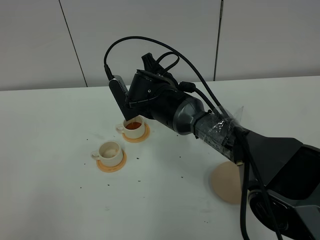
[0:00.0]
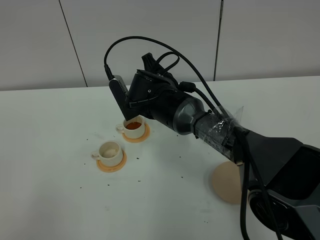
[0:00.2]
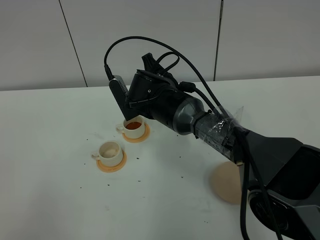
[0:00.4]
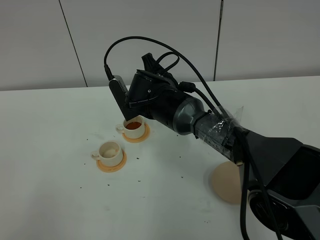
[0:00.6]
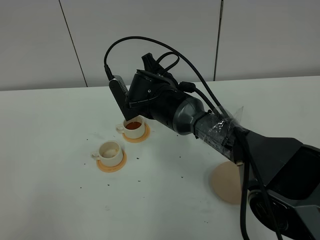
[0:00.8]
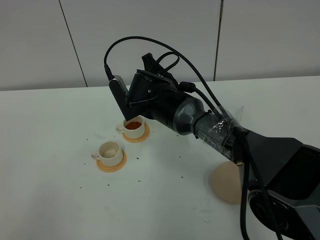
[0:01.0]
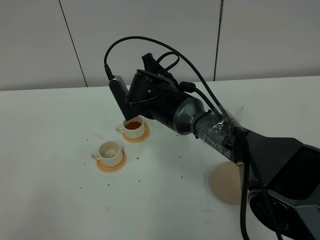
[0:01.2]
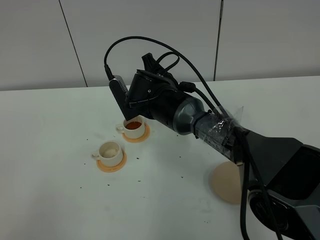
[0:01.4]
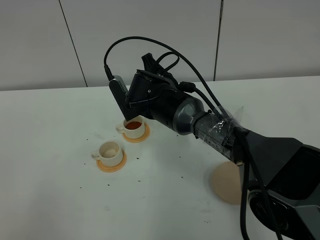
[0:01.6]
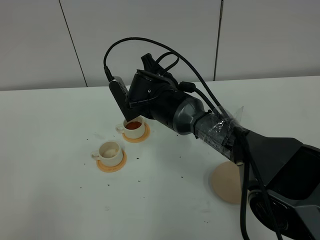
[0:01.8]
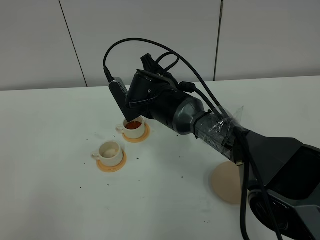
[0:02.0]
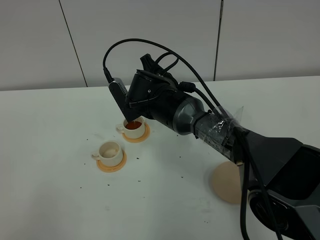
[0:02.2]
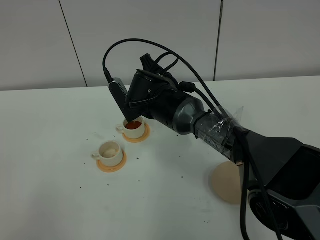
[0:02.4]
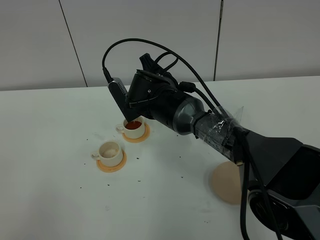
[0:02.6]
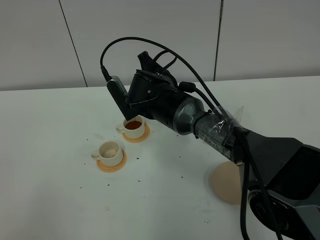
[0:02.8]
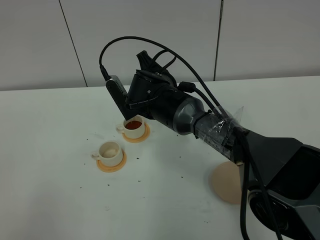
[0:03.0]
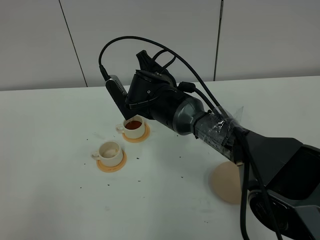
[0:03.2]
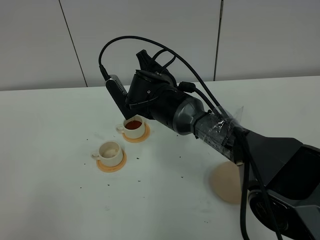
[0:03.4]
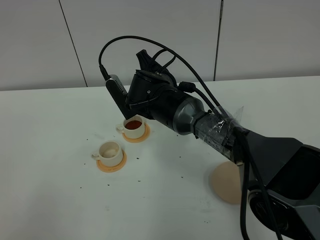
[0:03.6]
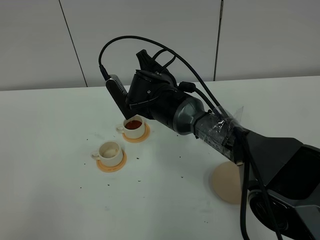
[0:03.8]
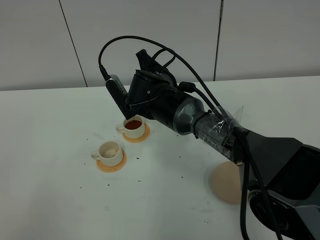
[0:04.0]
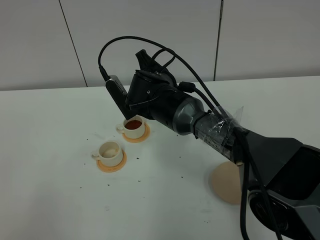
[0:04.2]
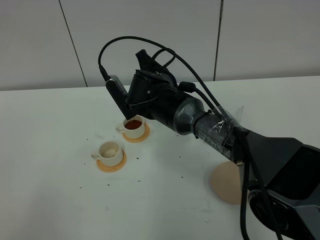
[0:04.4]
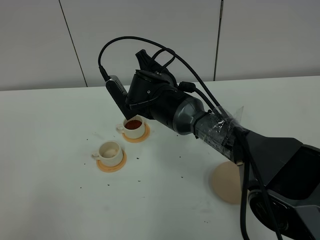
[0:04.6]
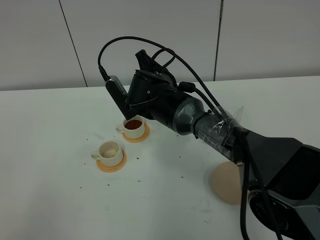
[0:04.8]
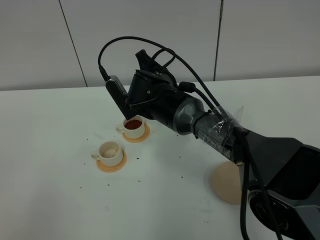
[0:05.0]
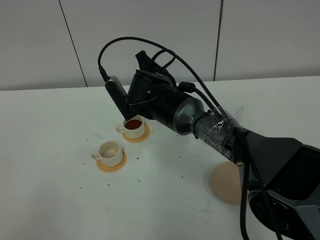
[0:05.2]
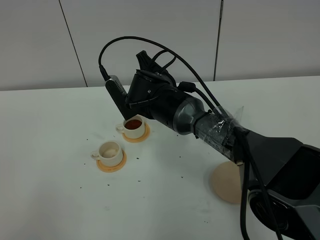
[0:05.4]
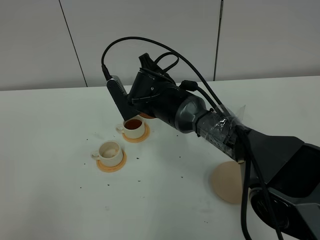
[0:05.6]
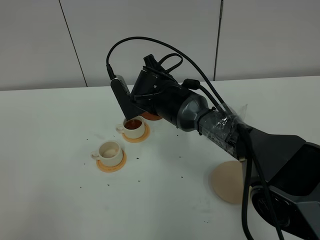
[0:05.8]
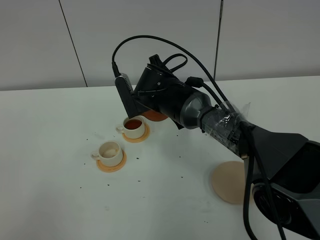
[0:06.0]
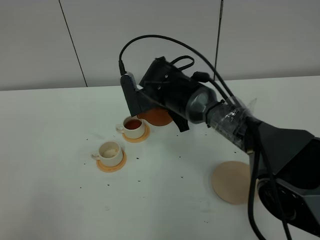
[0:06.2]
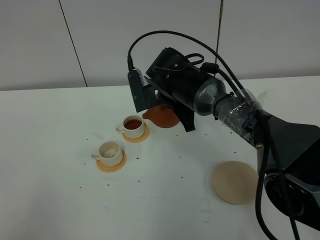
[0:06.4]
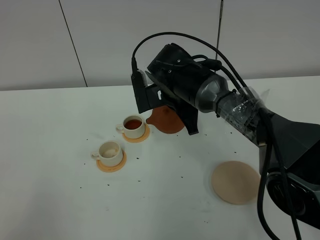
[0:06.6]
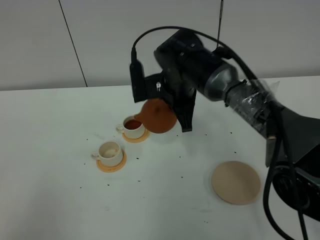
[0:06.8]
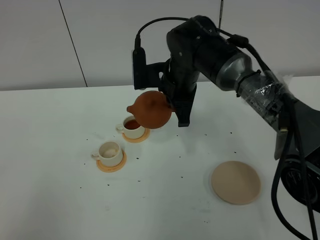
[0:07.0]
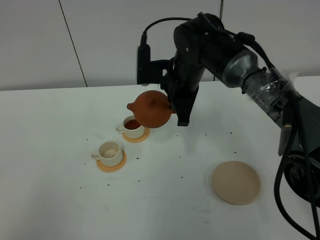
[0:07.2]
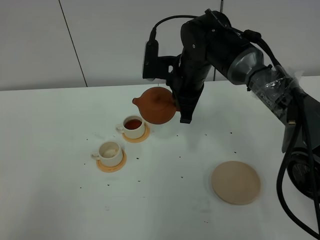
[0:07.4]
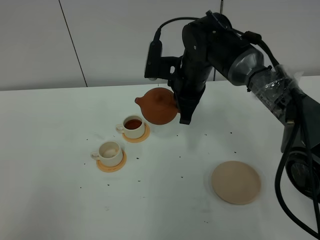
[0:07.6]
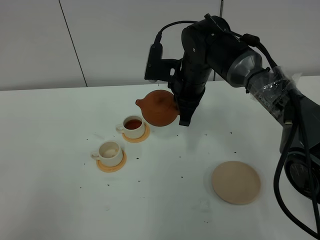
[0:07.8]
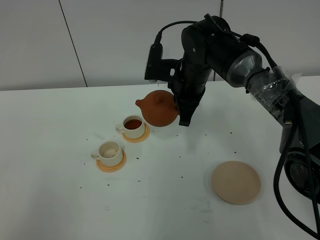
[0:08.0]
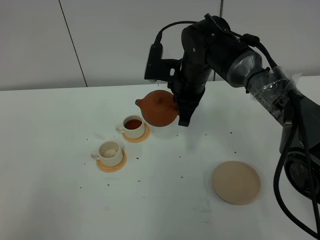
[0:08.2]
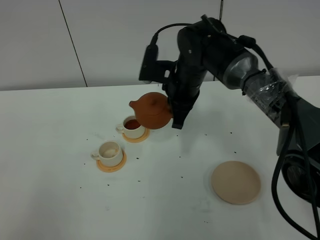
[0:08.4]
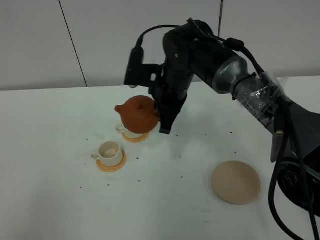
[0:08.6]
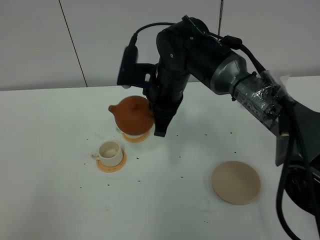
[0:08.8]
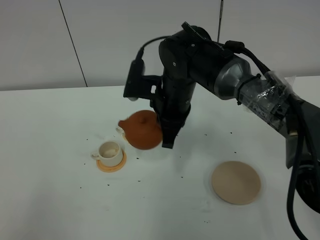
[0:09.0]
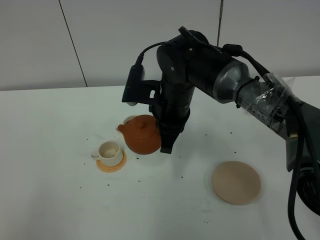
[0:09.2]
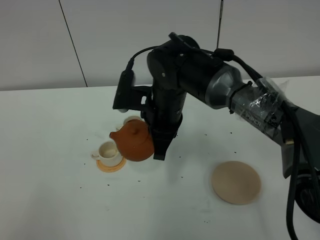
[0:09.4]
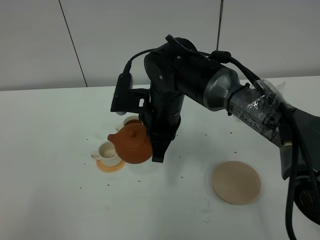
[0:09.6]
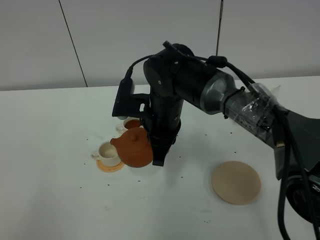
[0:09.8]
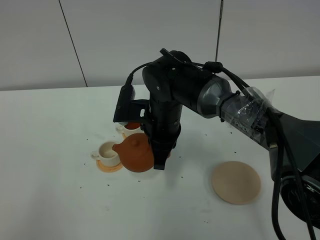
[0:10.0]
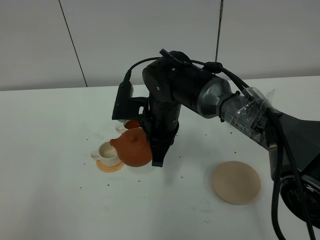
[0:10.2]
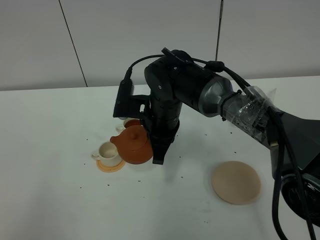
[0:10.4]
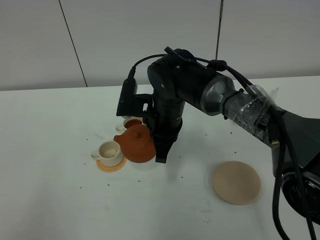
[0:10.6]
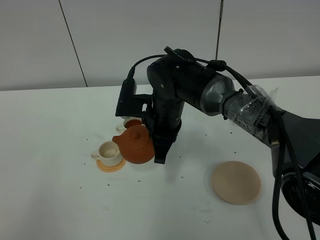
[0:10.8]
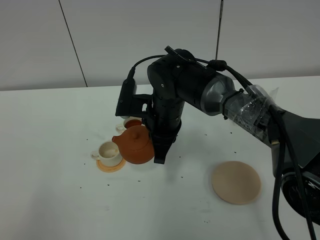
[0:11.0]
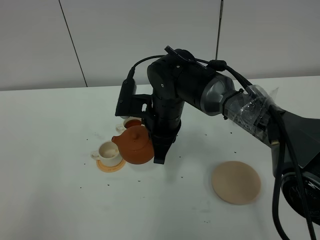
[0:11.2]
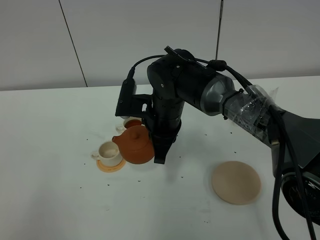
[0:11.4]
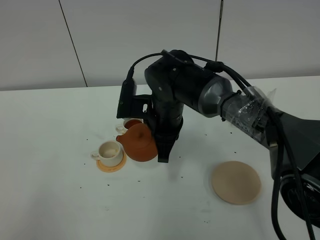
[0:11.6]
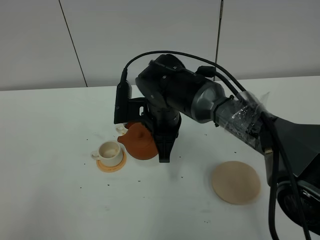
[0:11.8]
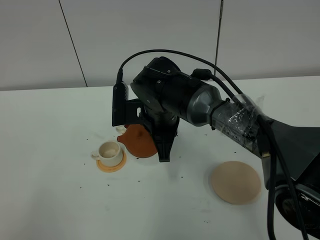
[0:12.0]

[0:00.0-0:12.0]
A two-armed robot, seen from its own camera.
Task of the whole recording: grasp the brown teapot and pour the tea into the two white teacups one by one, put the brown teapot back in its original place.
0:00.0 to 0:03.0: Both grippers stay about where they are.
0:03.0 to 0:04.4: Both grippers stay put.
0:04.4 to 0:06.0: The grippers make only small movements.
0:06.0 to 0:07.6: The right gripper heads to the right, covering some 5 cm.
0:07.6 to 0:09.0: The right gripper travels backward by some 5 cm.
0:09.0 to 0:12.0: The grippers stay close to where they were, moving slightly.

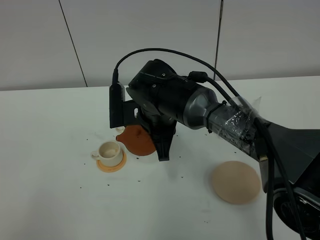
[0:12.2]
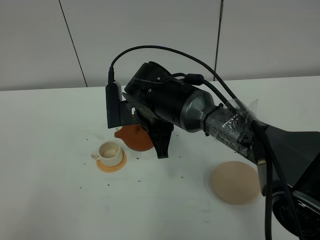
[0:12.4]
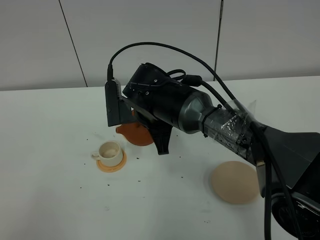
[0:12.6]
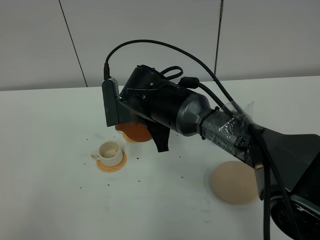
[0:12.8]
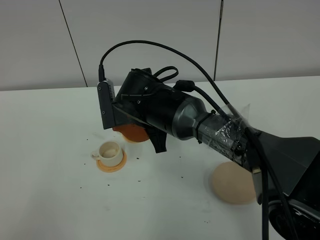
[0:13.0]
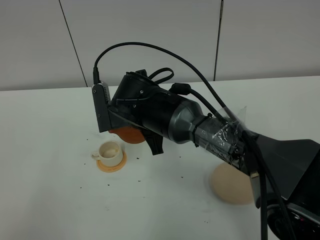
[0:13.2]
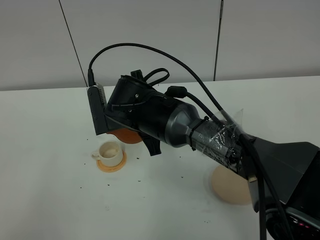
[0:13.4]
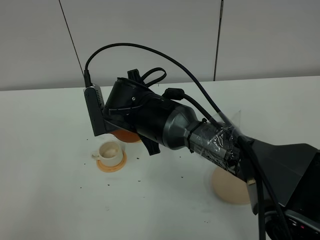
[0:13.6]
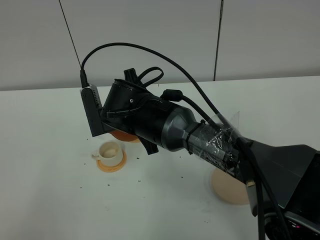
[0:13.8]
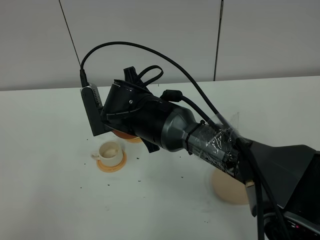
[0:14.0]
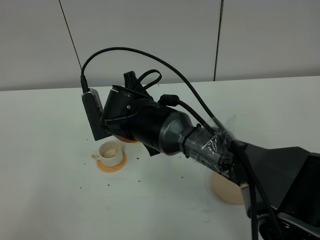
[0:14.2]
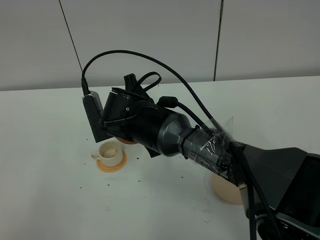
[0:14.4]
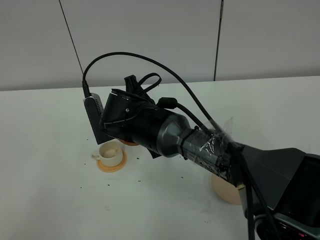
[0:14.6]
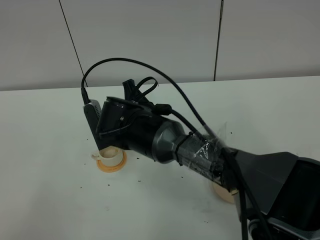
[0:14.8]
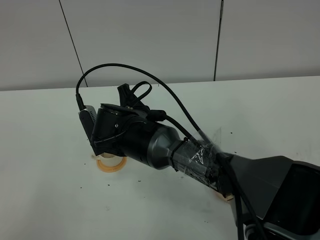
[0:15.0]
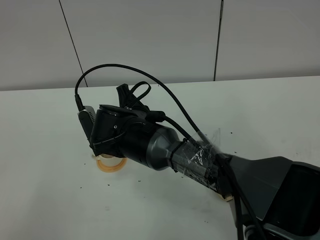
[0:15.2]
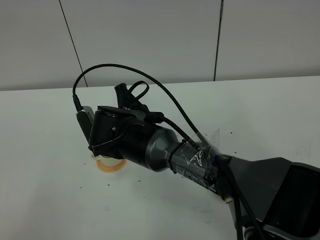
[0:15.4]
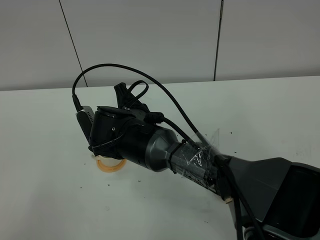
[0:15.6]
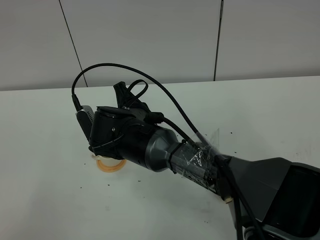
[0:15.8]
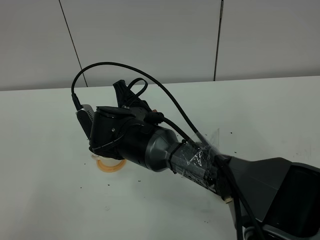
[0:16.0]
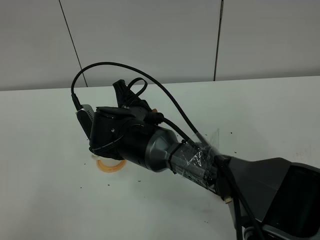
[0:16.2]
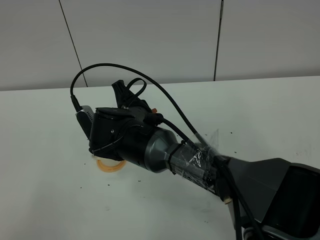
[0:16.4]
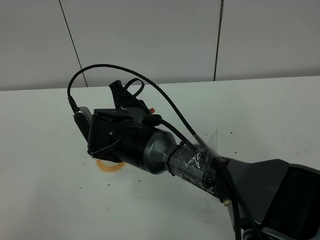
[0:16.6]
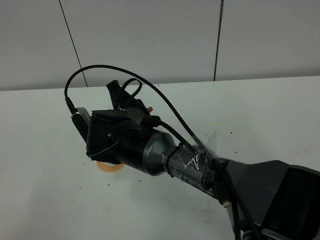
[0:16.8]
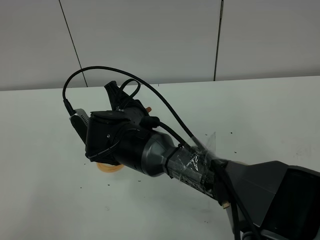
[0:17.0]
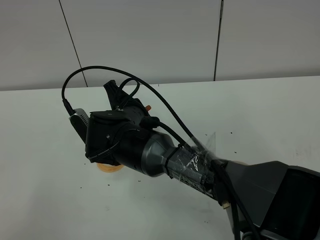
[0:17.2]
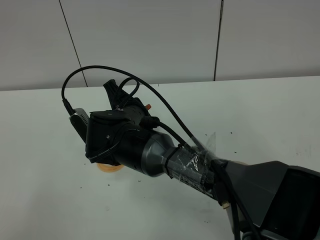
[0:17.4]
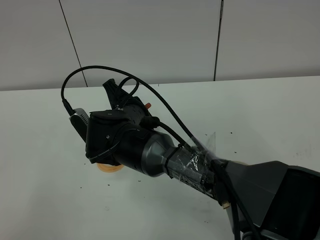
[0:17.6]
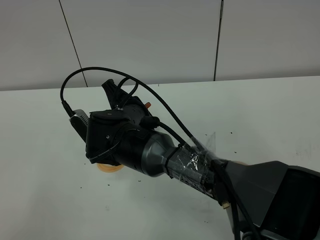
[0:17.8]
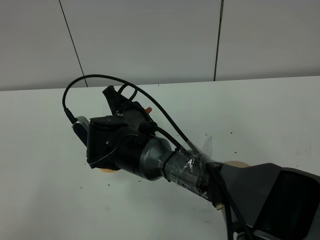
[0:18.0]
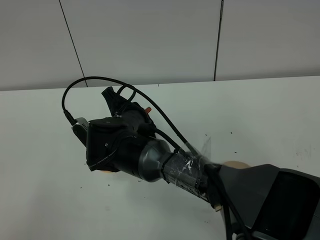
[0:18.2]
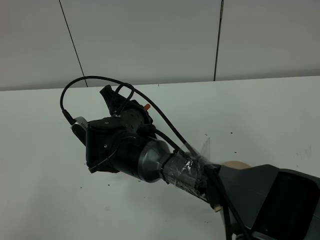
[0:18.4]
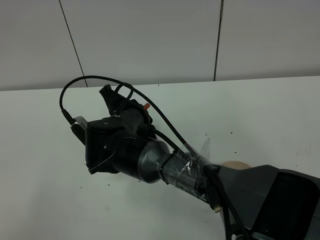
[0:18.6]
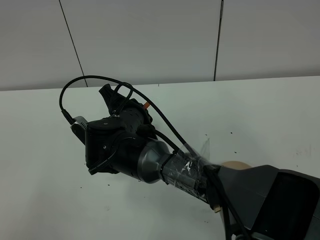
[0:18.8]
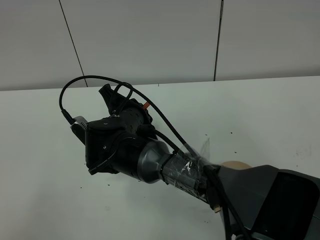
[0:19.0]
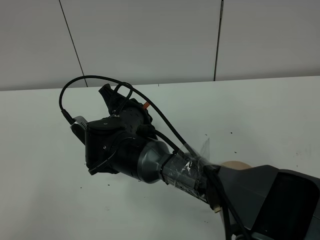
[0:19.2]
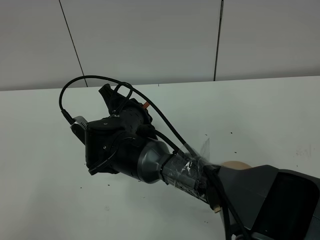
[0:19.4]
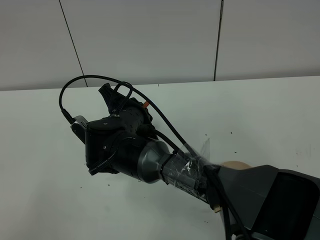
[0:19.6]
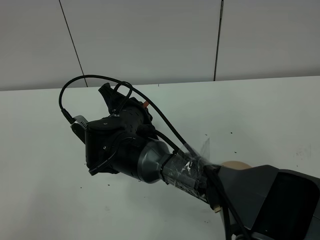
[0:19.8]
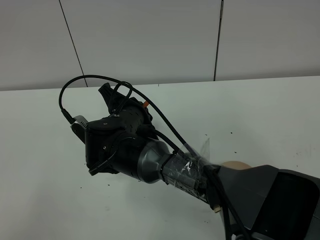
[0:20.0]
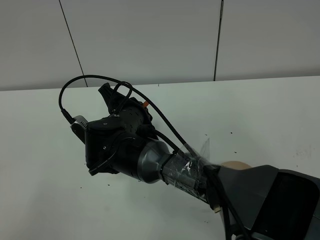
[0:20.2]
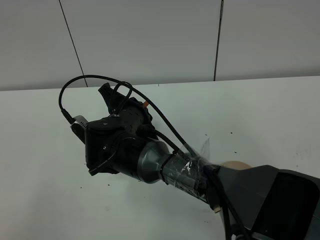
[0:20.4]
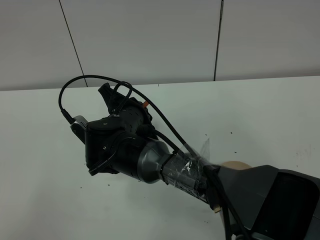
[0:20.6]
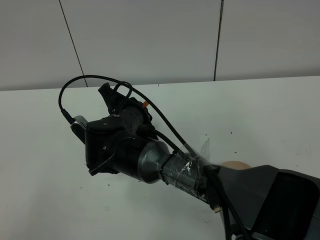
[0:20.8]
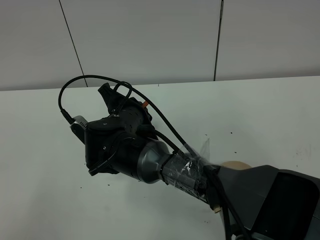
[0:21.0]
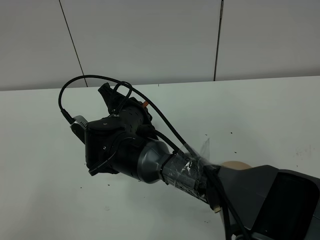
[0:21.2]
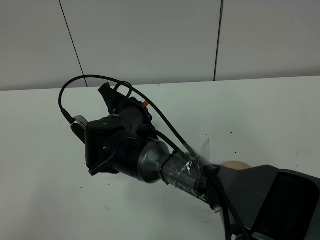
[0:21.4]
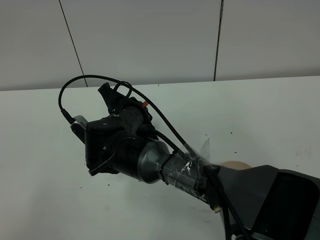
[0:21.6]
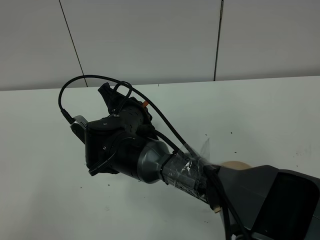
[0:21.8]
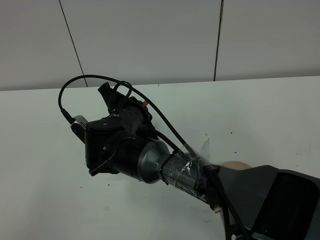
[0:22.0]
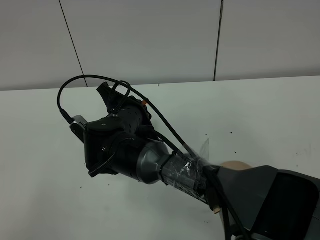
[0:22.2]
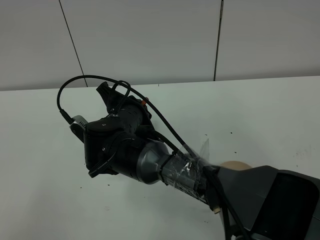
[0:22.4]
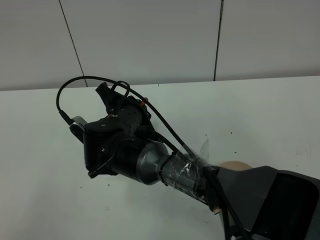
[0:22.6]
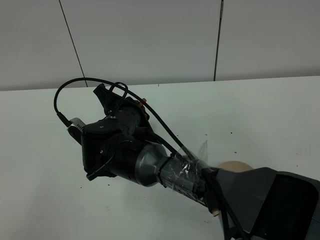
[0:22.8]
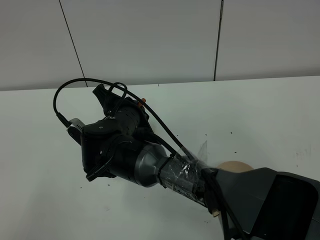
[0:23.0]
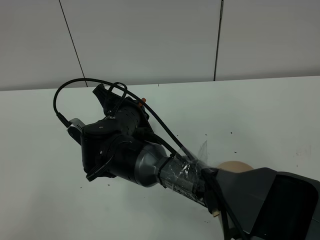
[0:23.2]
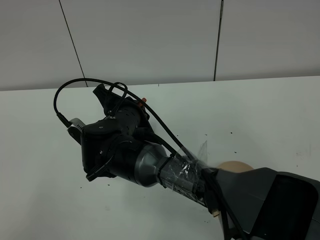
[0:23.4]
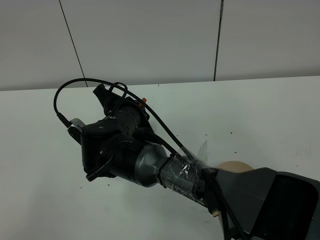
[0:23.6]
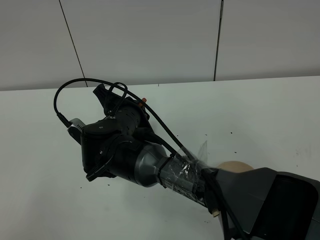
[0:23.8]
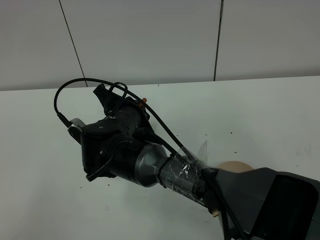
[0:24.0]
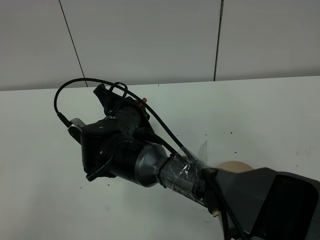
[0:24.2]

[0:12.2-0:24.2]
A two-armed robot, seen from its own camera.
Task of the whole recording: grasp the brown teapot and pour the tea into the two white teacups one by one, put the brown teapot back in its original place.
0:12.2 to 0:13.8: The grippers stay close to where they were, moving slightly.
0:13.8 to 0:16.6: The grippers stay close to where they were, moving slightly.
0:16.6 to 0:18.2: There are only small adjustments of the grippers.
0:18.2 to 0:21.2: Neither gripper changes place.
0:21.2 to 0:24.2: The two grippers keep their place.
